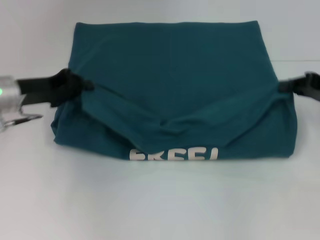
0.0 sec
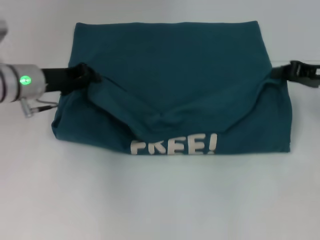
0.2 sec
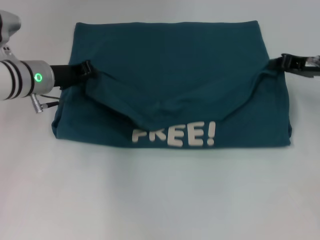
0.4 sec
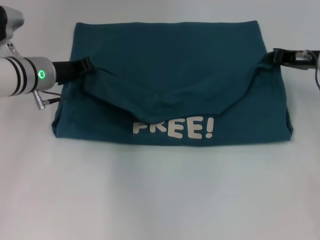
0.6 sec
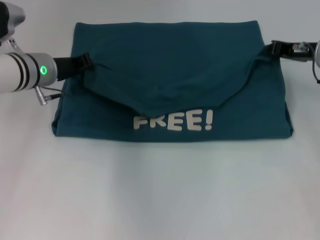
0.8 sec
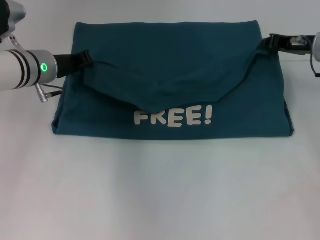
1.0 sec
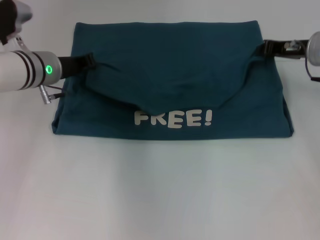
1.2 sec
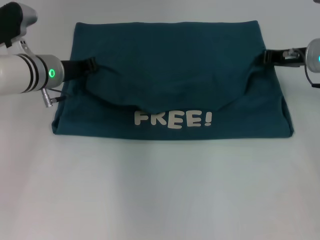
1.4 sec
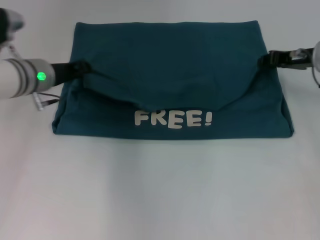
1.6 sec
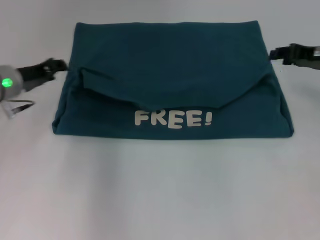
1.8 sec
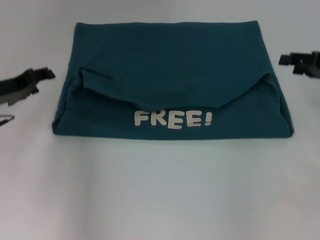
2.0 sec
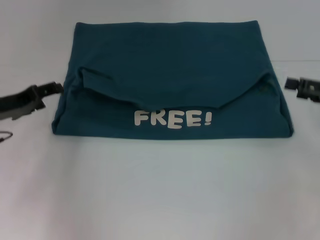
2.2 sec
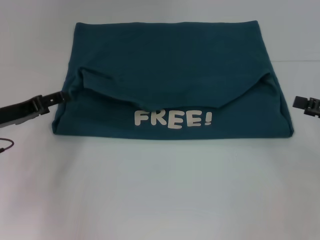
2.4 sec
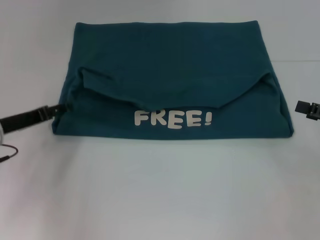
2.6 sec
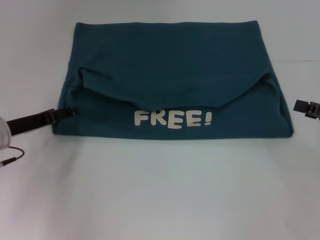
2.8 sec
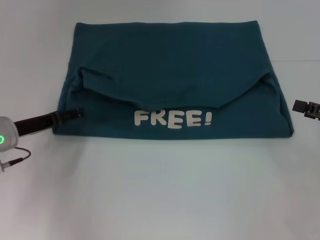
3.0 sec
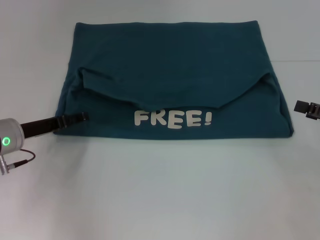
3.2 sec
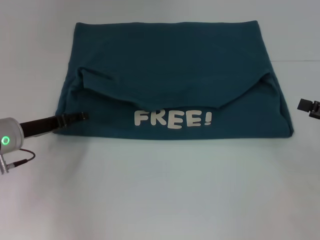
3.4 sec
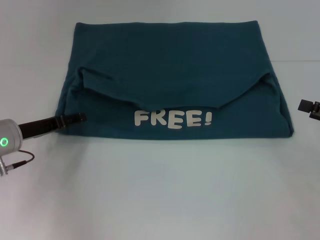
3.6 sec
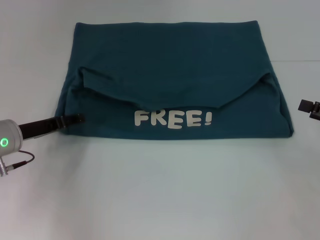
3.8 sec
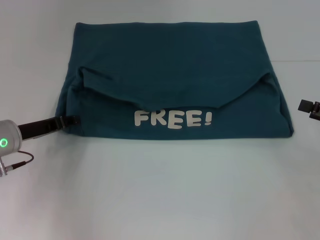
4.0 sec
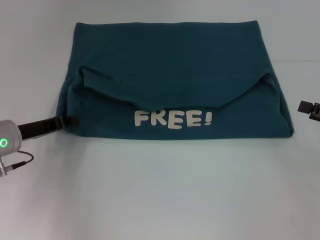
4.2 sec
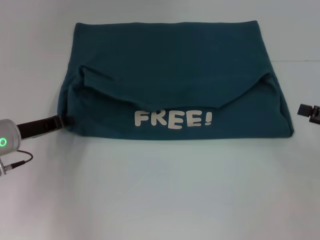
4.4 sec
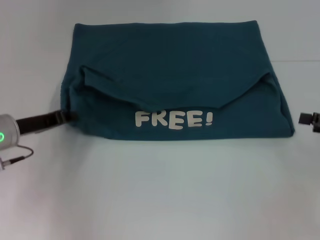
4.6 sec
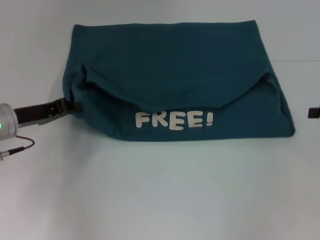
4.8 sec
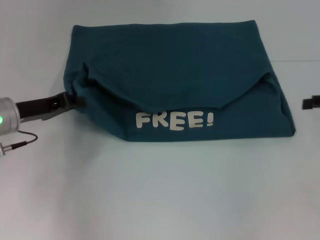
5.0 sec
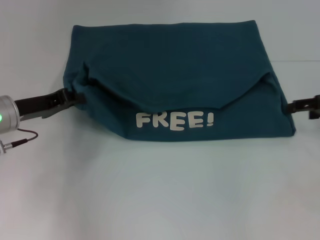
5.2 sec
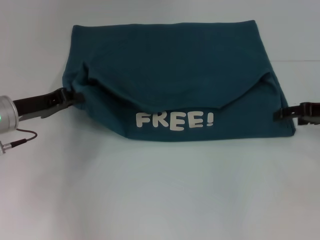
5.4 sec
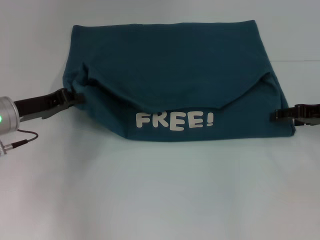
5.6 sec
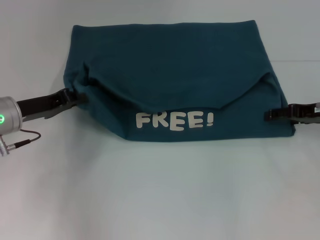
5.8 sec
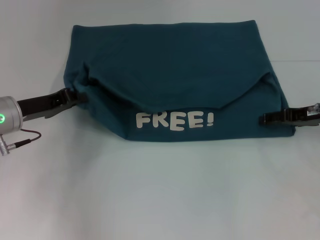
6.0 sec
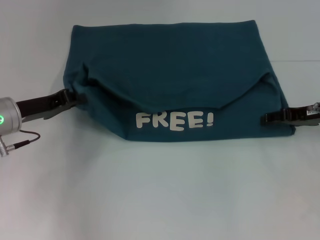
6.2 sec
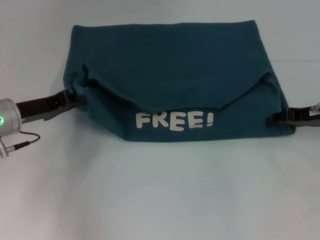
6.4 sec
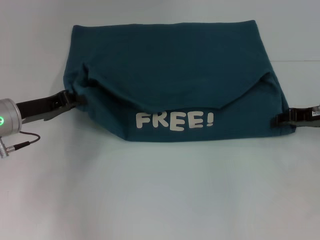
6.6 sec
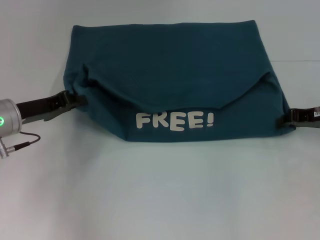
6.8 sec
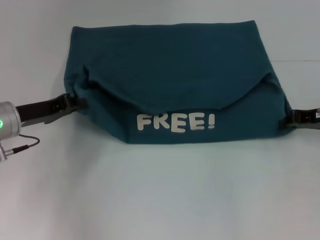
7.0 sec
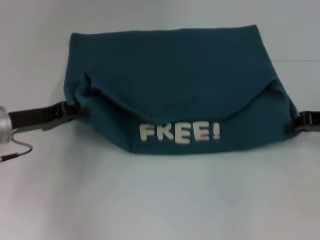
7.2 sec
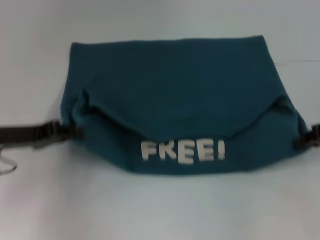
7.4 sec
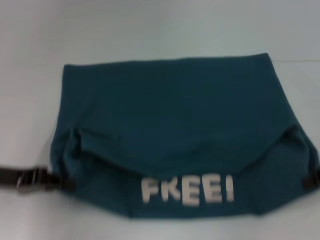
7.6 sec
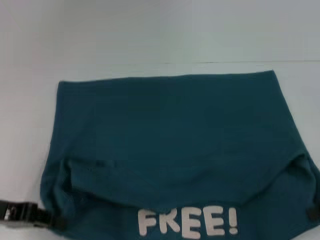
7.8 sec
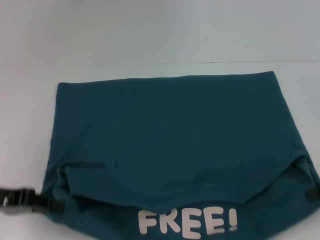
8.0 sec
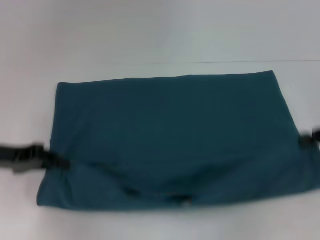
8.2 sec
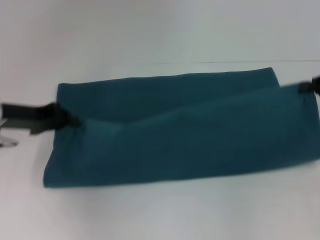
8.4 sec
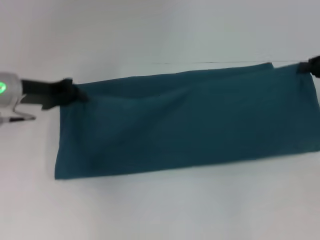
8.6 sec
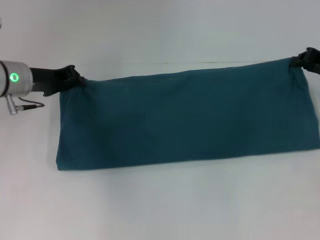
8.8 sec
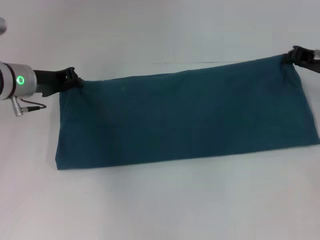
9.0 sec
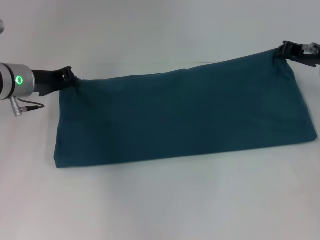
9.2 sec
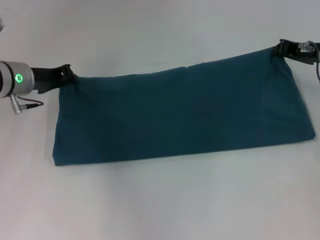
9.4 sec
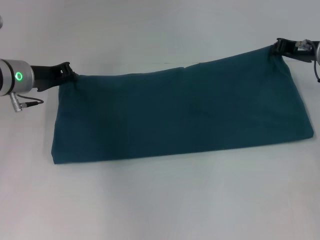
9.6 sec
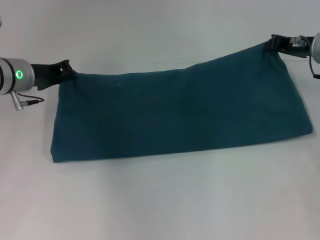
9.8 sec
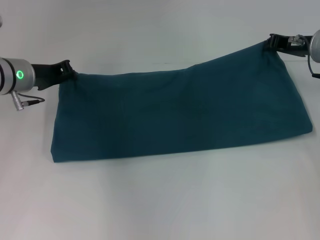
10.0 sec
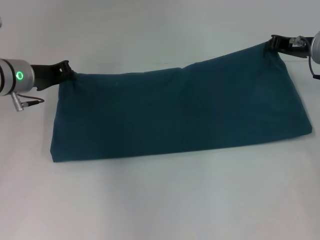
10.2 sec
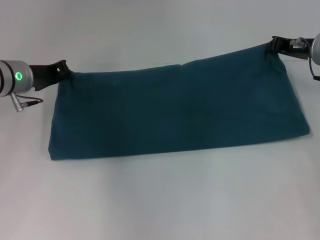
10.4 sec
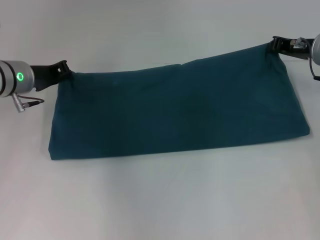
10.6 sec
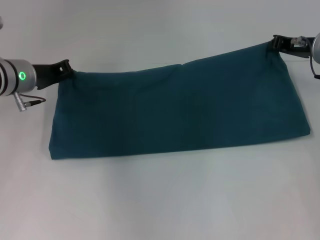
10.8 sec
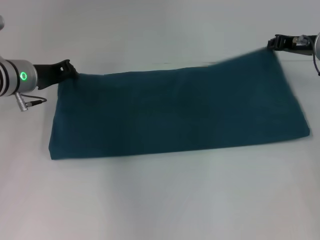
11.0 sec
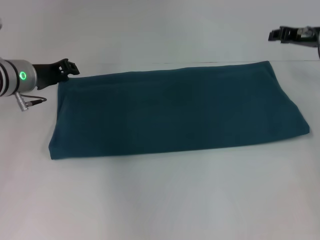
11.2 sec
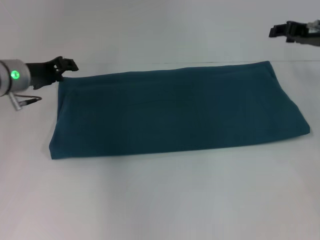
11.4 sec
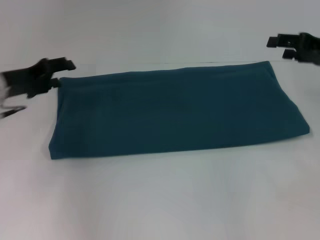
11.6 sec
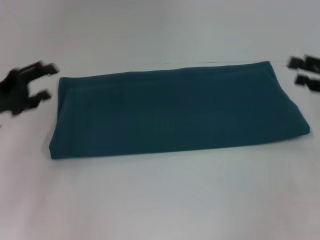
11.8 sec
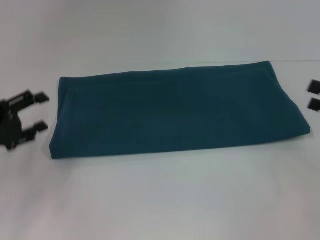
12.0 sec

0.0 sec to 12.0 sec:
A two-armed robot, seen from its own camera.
Step, 0.0 sec to 2.4 sec: Fold the clothes to the left.
Step, 0.0 sec to 2.4 sec: Fold the clothes to the right.
Step, 2.6 sec to 7.8 sec: Pull the clothes with your left hand.
Step, 2.6 sec to 7.8 sec: Pull the clothes with your right hand.
Step, 8.0 sec to 11.8 sec: Fold the clothes to the right.
0.0 sec to 1.6 sec: The left gripper travels forward by approximately 5 cm. The right gripper goes about 10 cm forward and to the left.
1.6 sec to 3.0 sec: The right gripper heads backward and to the right, covering approximately 20 cm, and opens its fingers. Meanwhile the left gripper goes roughly 10 cm backward, to the left and downward, and opens up.
3.0 sec to 4.4 sec: The left gripper closes.
4.4 sec to 6.0 sec: The right gripper travels forward and to the left by some 10 cm.
6.0 sec to 7.6 sec: The grippers both shift backward by some 5 cm. The right gripper closes.
7.6 sec to 9.0 sec: The grippers both shift forward by roughly 15 cm.
9.0 sec to 10.4 sec: The grippers move only a little.
10.4 sec to 12.0 sec: The right gripper moves backward and to the right, roughly 20 cm, and opens its fingers. The left gripper heads backward and to the left, covering roughly 15 cm, and opens its fingers.

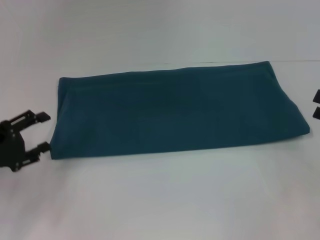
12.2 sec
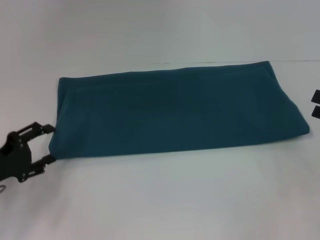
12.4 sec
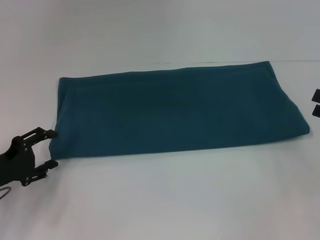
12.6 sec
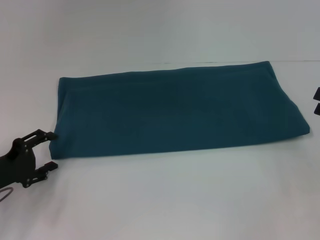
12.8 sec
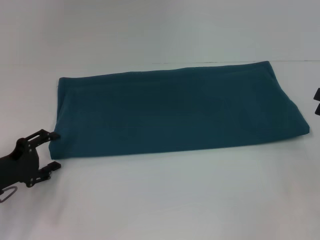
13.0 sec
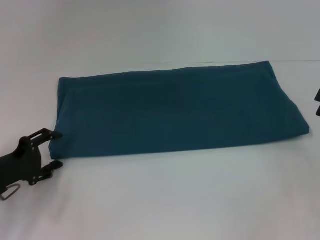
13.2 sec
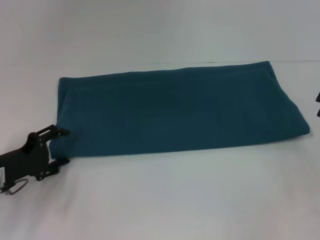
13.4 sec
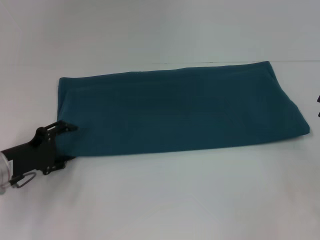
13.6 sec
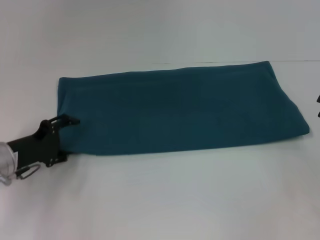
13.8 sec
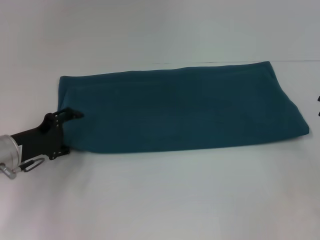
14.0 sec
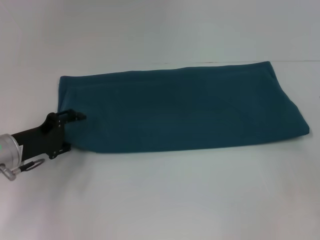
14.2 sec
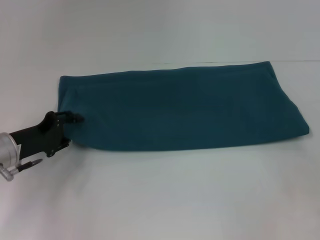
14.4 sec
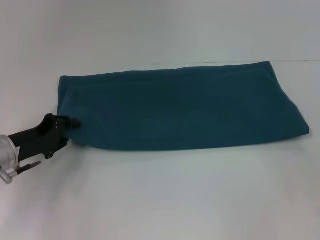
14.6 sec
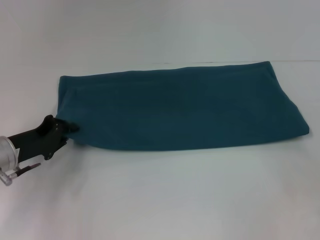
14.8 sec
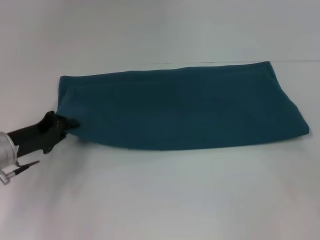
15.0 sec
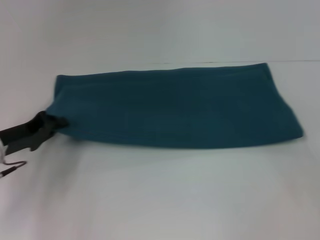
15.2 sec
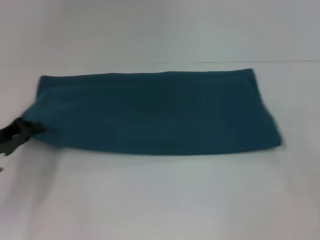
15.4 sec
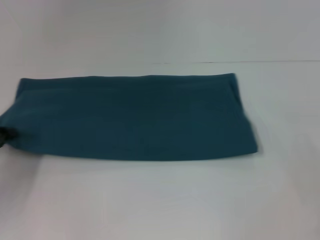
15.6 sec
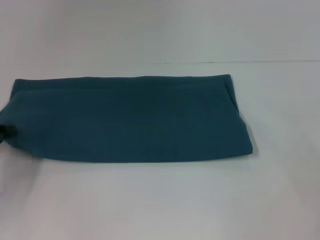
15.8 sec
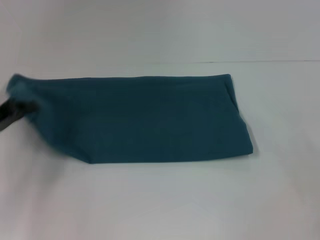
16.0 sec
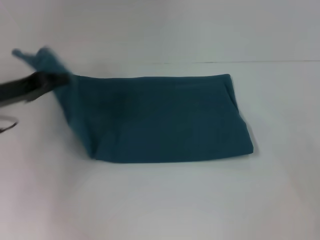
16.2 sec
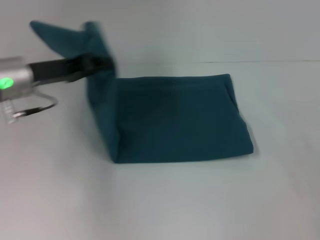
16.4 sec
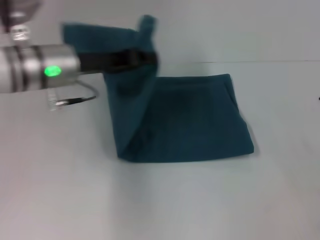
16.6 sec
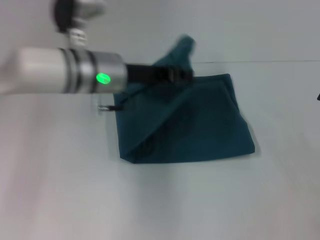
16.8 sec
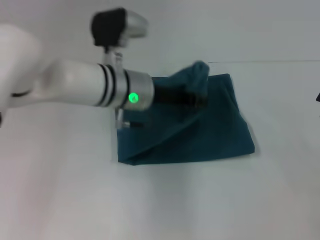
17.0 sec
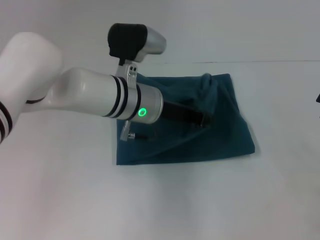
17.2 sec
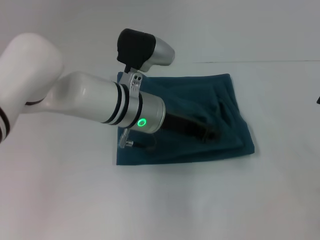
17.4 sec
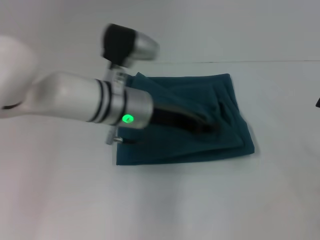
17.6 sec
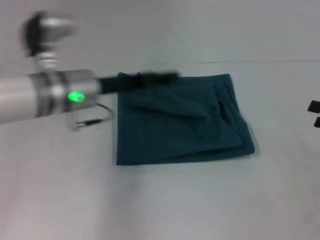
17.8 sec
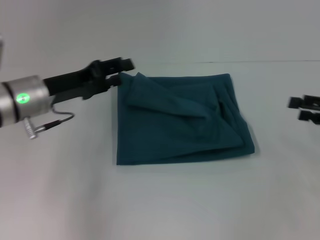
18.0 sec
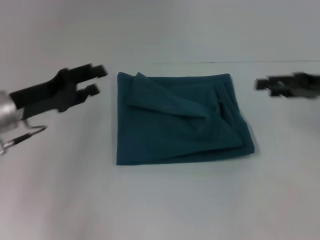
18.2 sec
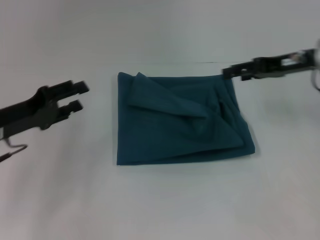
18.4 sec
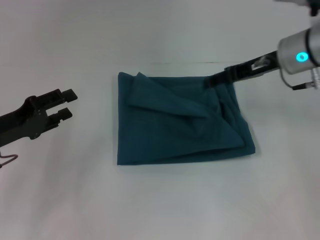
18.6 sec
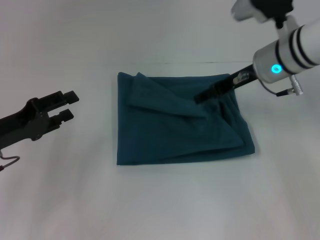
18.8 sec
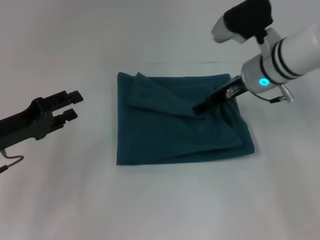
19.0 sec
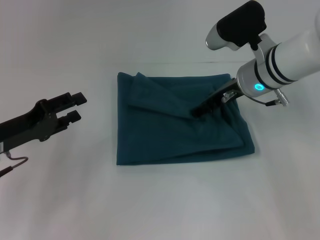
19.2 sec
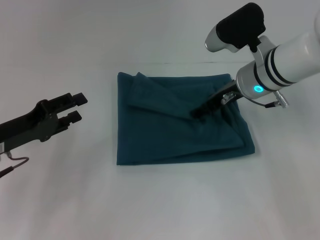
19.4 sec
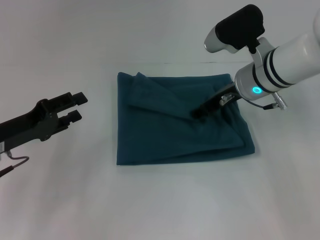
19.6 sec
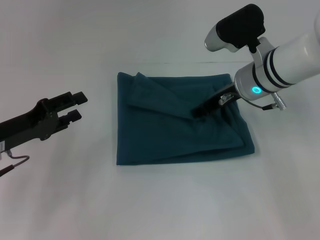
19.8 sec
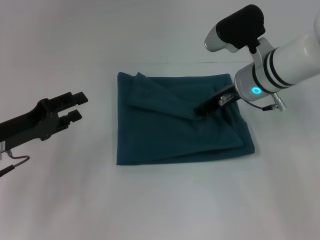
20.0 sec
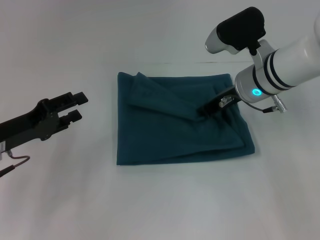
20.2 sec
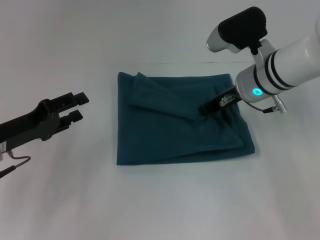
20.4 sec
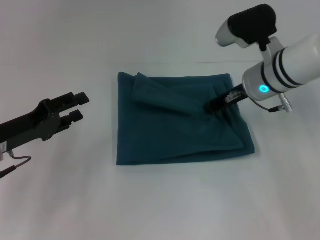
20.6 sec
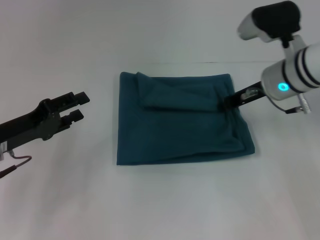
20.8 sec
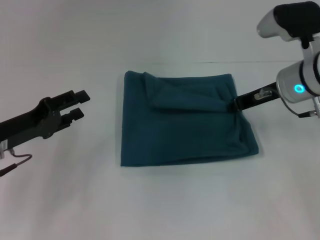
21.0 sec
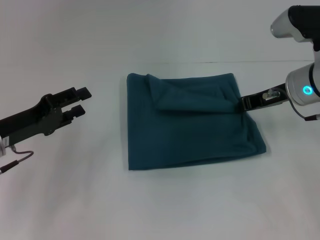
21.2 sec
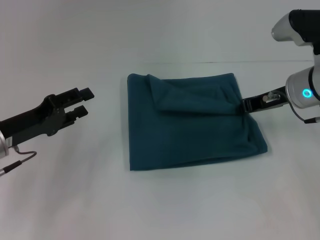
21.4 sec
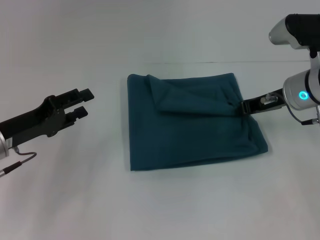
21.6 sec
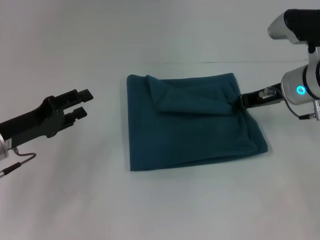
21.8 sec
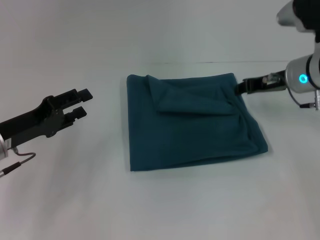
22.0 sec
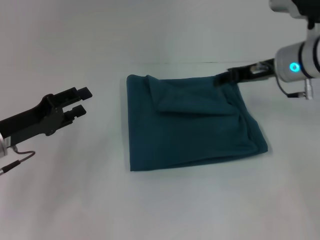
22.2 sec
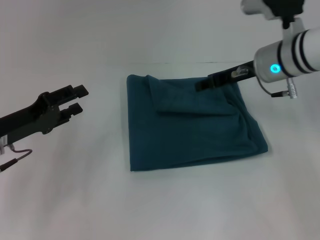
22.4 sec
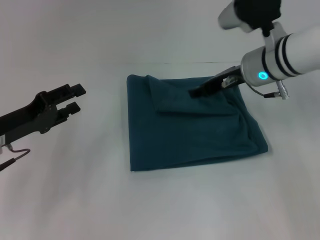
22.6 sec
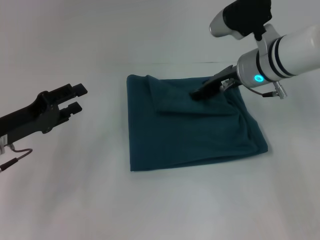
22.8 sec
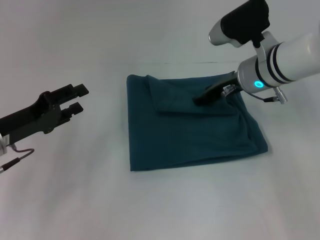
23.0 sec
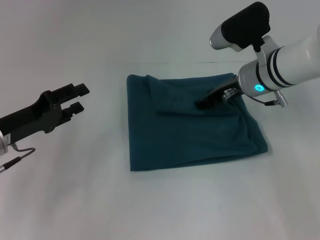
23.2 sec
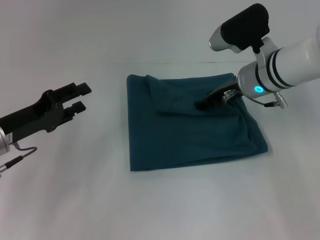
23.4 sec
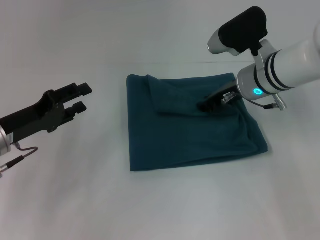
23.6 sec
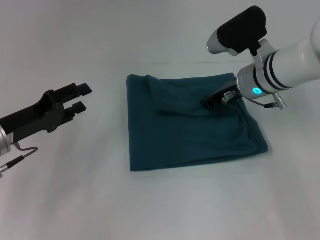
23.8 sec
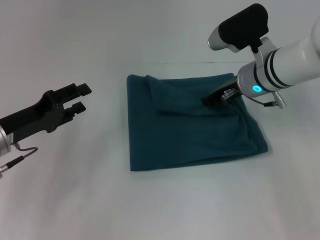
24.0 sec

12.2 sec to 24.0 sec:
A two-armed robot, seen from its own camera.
Step, 12.2 sec to 18.0 sec: Fold the clothes to the left.
12.2 sec to 13.6 sec: The left gripper shifts by roughly 5 cm.
13.6 sec to 15.2 sec: The left gripper closes.
15.2 sec to 16.6 sec: The left gripper goes some 20 cm to the right, upward and forward.
16.6 sec to 18.2 sec: The left gripper is displaced to the left, downward and backward by roughly 10 cm, and opens, while the right gripper goes about 15 cm forward, to the left and upward.
18.2 sec to 19.6 sec: The left gripper ends up about 5 cm from where it was. Meanwhile the right gripper travels to the left by approximately 15 cm.
19.6 sec to 21.0 sec: The right gripper moves to the right, roughly 5 cm, and closes up.
21.0 sec to 22.6 sec: The right gripper changes place by approximately 5 cm, and opens its fingers.
22.6 sec to 24.0 sec: The right gripper closes.
